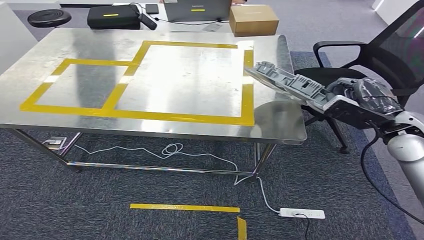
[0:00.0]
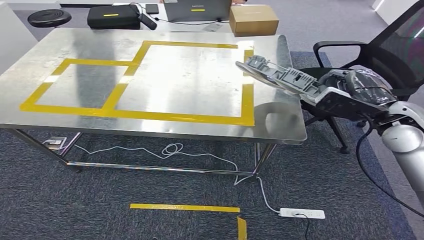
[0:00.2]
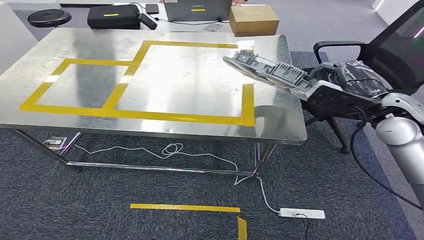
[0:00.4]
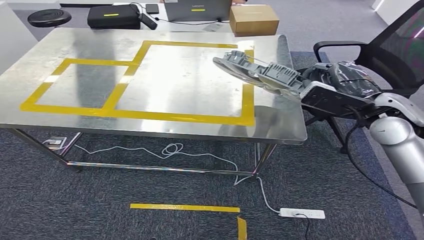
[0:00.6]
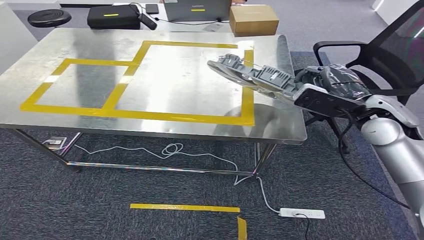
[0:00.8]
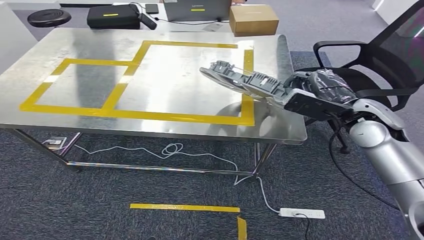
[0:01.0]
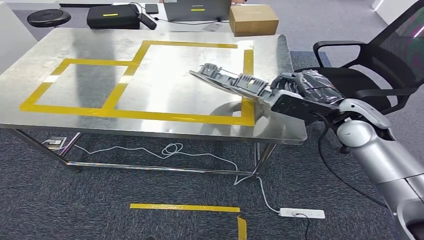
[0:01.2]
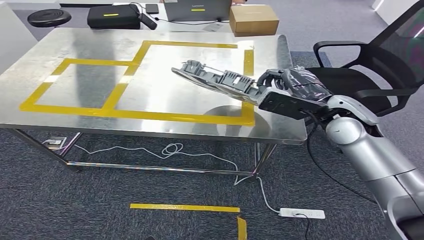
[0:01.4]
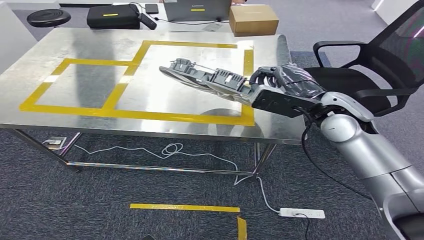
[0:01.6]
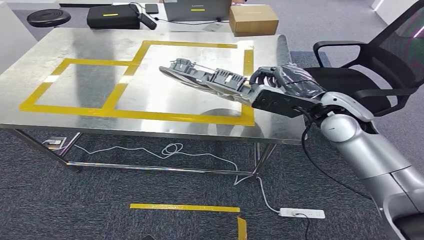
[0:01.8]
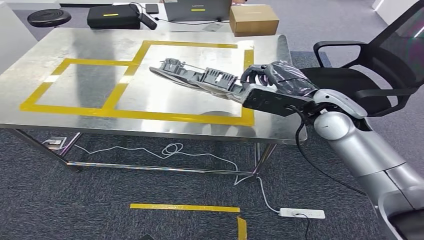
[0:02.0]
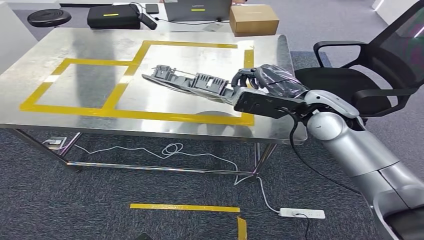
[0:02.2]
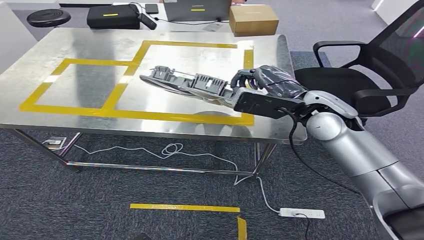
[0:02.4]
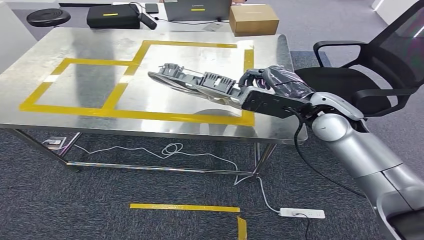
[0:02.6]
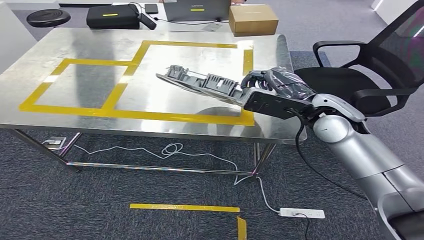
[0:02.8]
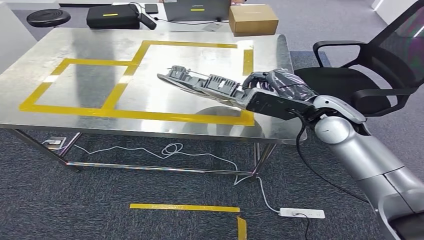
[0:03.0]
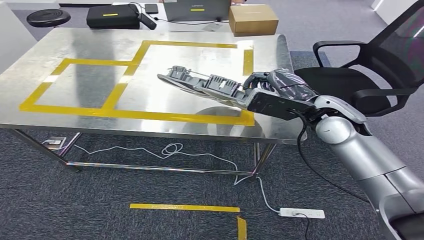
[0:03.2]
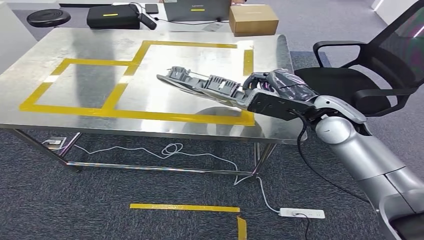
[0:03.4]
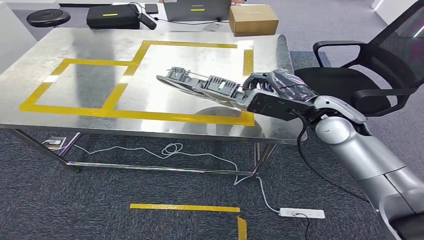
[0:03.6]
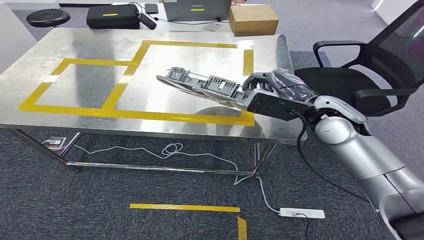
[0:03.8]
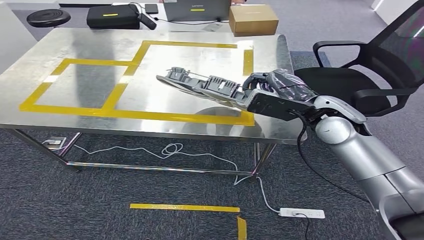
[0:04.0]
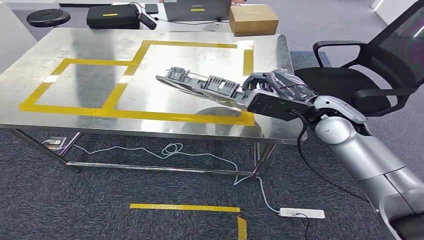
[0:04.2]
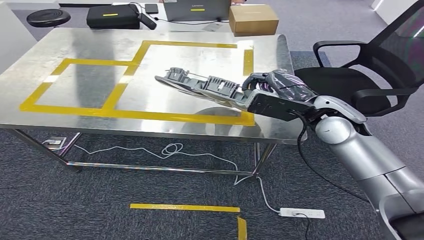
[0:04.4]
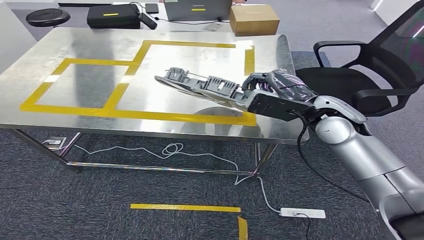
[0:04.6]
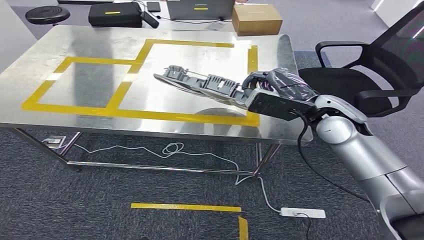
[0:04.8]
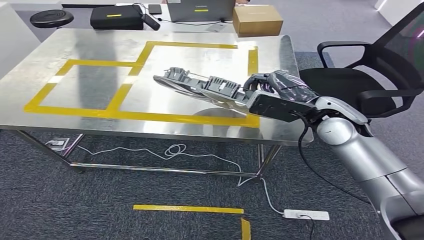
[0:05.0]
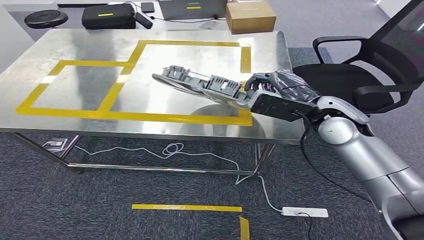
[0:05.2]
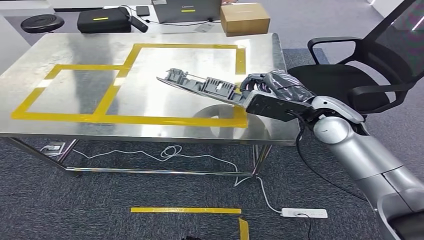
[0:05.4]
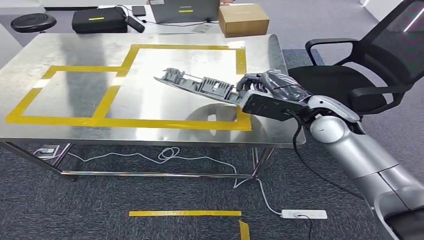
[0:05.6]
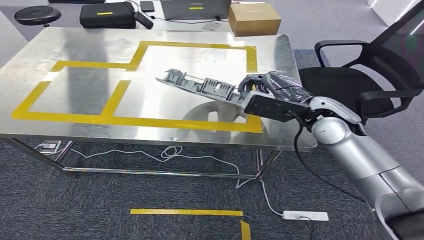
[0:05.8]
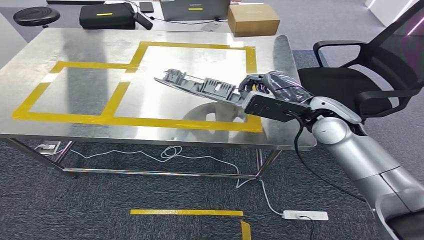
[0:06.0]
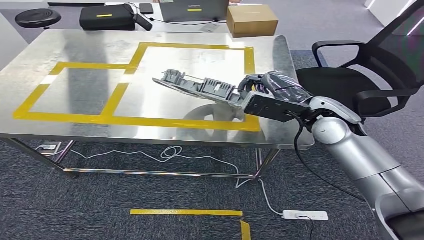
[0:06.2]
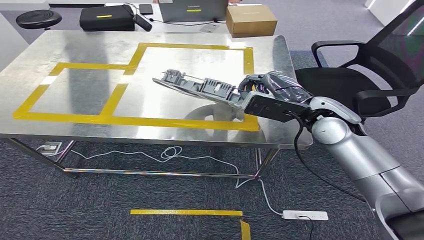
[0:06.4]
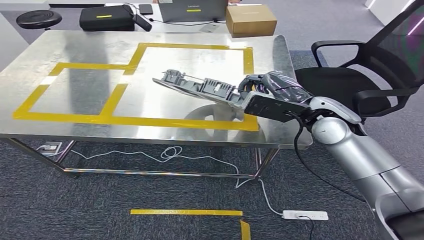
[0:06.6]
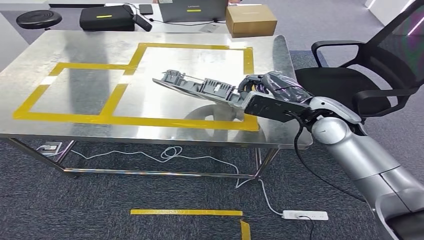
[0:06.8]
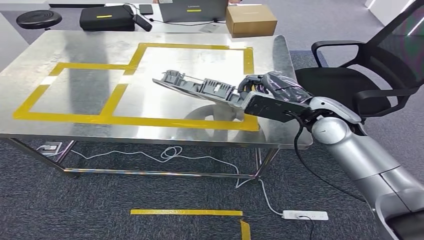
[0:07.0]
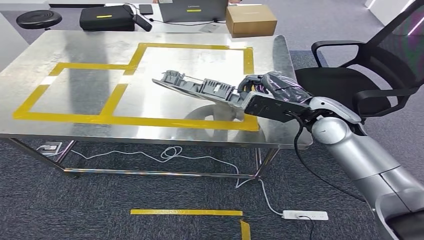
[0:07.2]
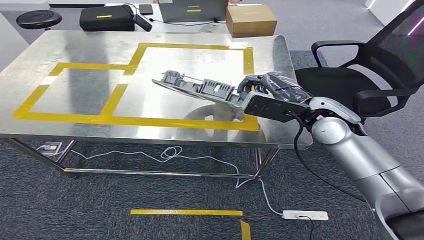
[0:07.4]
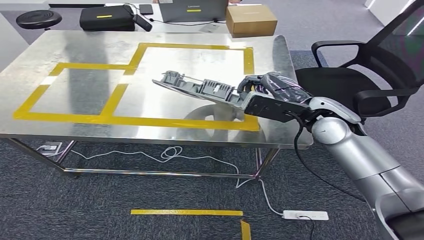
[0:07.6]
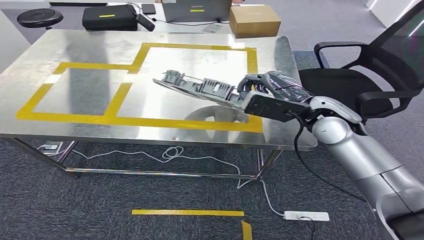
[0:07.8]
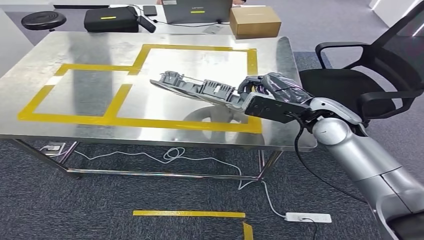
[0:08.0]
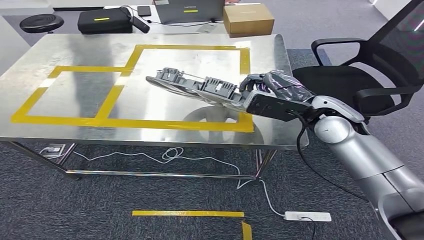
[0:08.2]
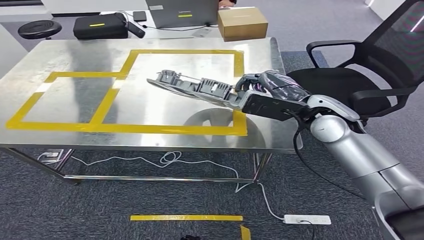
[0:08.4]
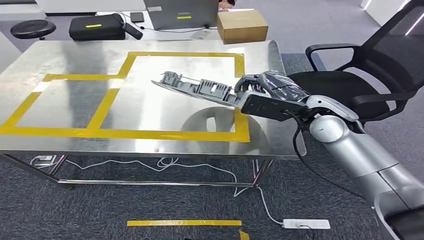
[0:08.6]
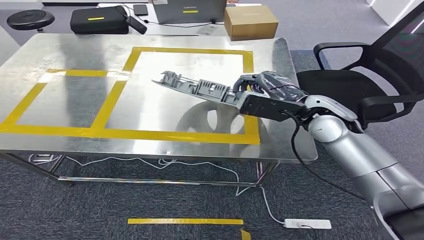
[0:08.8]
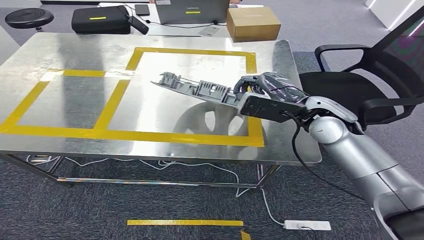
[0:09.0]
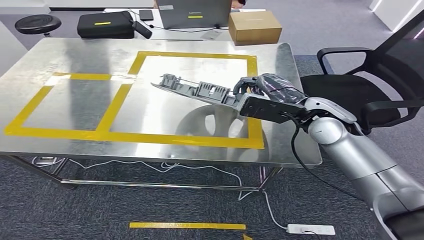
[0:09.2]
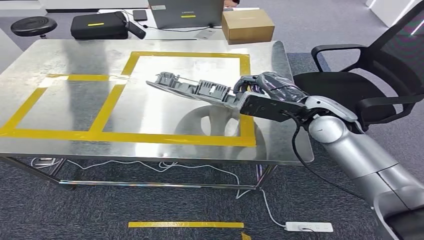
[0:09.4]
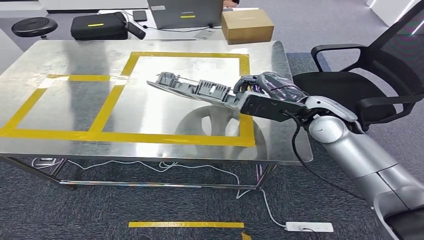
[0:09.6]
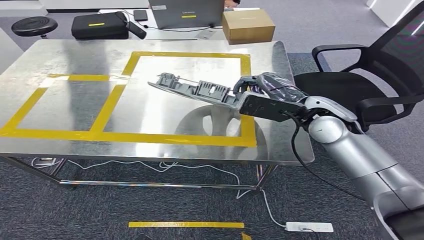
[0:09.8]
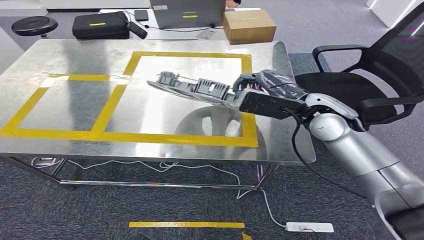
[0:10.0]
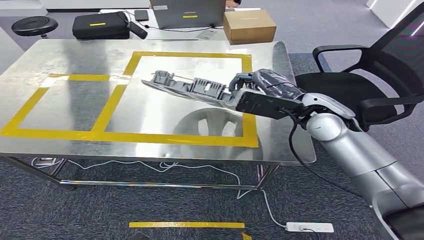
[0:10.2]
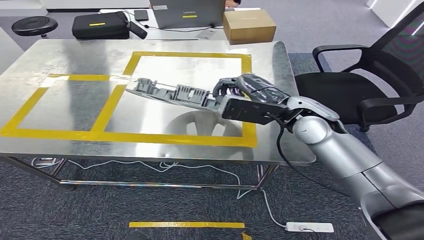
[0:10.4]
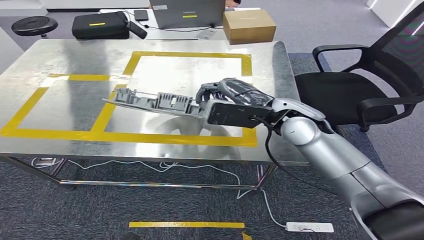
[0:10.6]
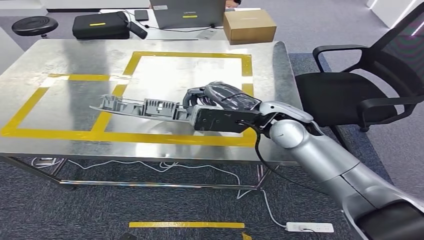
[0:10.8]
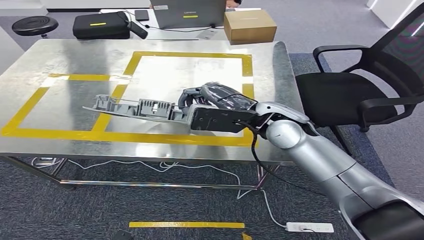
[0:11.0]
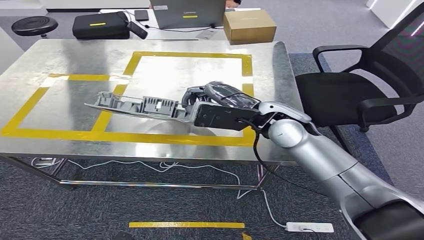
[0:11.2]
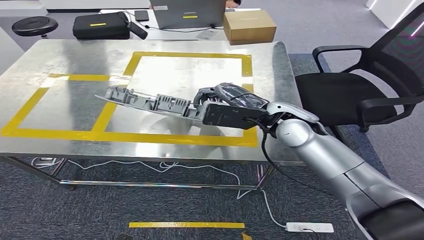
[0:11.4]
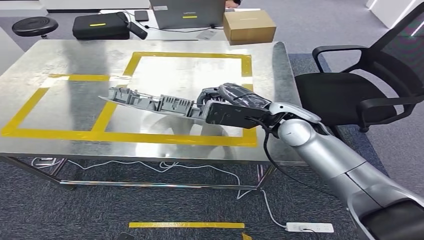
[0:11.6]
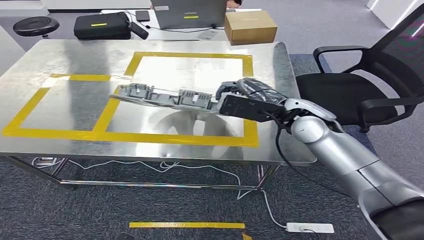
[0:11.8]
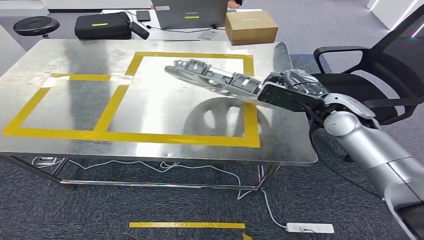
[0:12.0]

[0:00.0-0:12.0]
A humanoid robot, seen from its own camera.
0:00.0 to 0:01.6: The right hand heads to the left, covering approximately 15 cm.
0:01.6 to 0:04.4: The hands make only small movements.
0:06.0 to 0:07.6: Both hands stay about where they are.

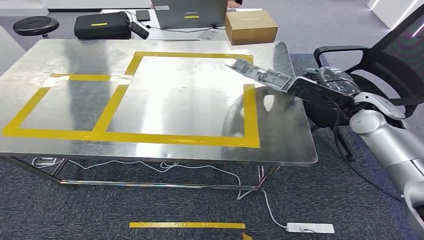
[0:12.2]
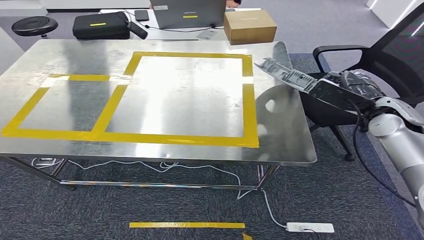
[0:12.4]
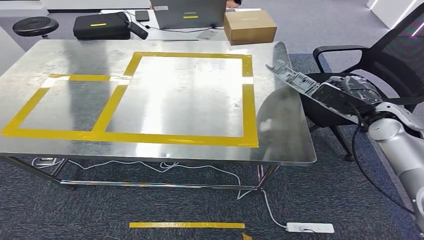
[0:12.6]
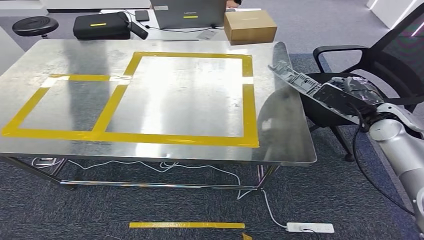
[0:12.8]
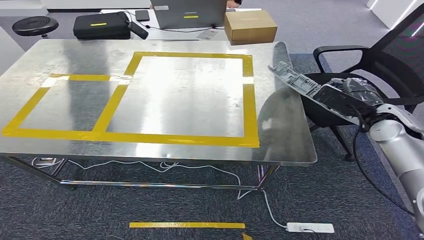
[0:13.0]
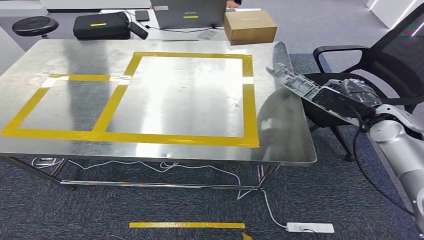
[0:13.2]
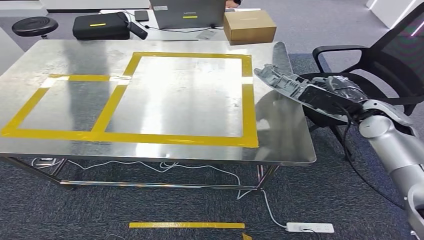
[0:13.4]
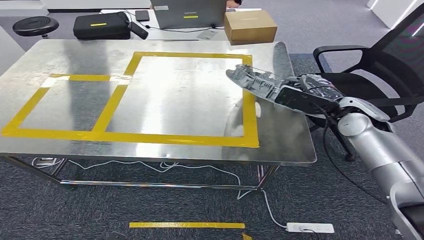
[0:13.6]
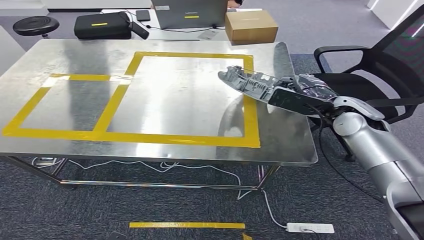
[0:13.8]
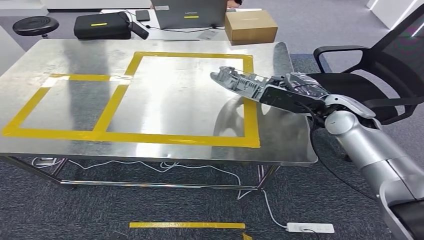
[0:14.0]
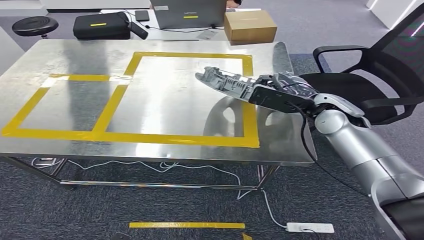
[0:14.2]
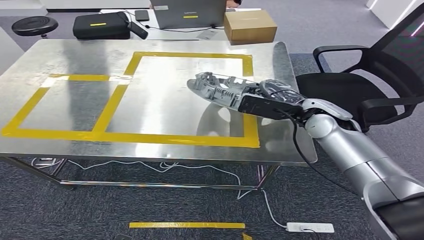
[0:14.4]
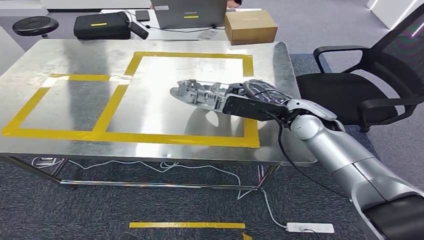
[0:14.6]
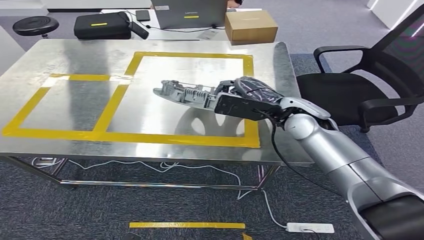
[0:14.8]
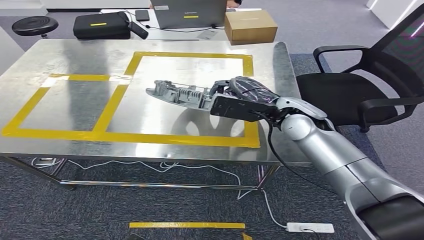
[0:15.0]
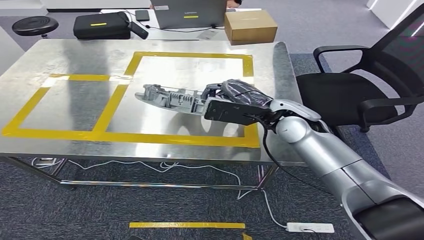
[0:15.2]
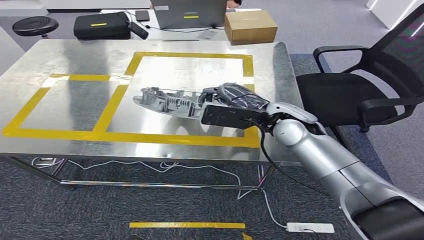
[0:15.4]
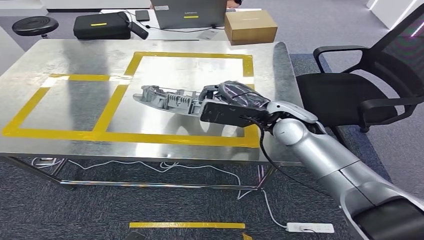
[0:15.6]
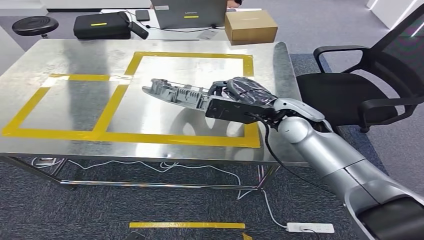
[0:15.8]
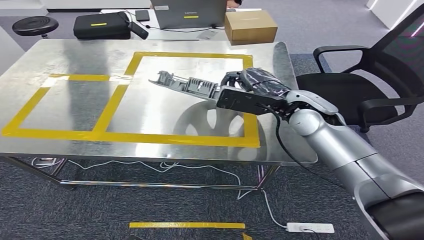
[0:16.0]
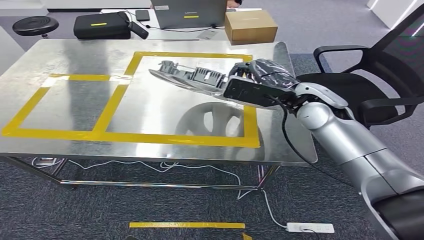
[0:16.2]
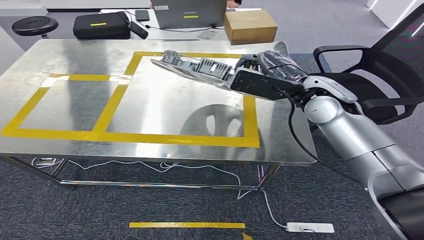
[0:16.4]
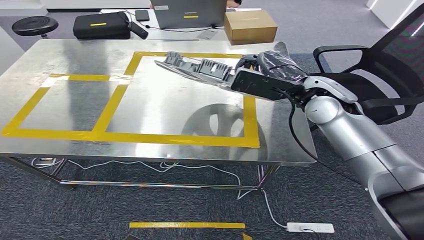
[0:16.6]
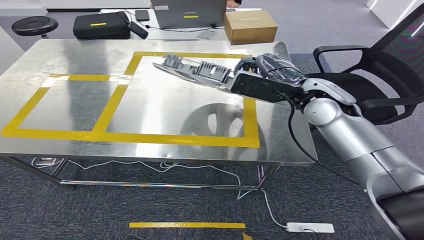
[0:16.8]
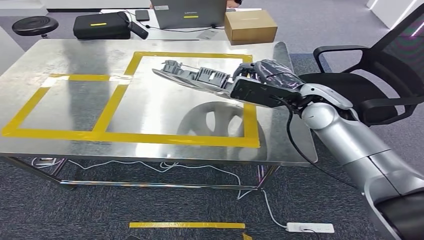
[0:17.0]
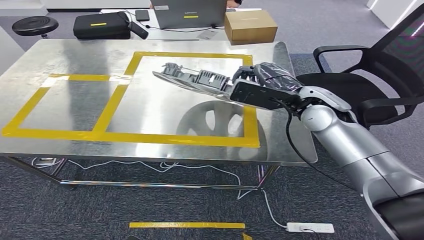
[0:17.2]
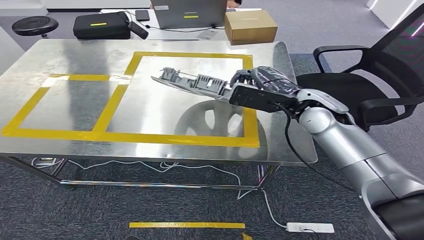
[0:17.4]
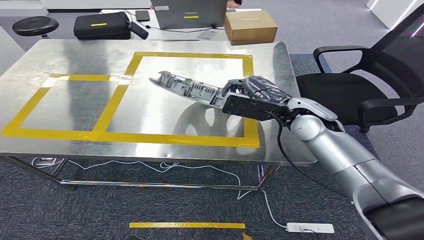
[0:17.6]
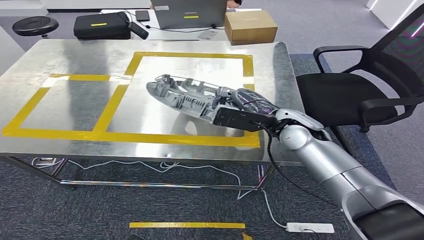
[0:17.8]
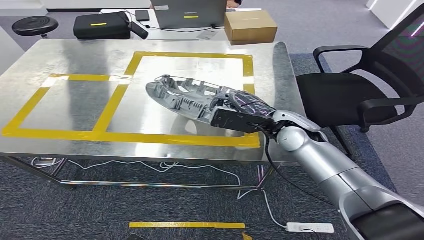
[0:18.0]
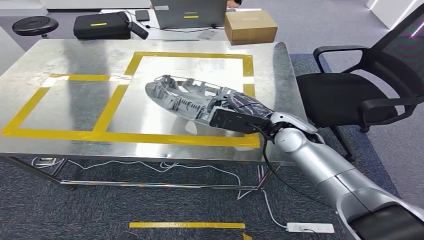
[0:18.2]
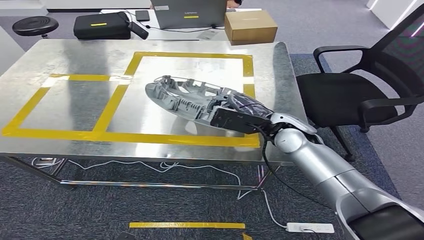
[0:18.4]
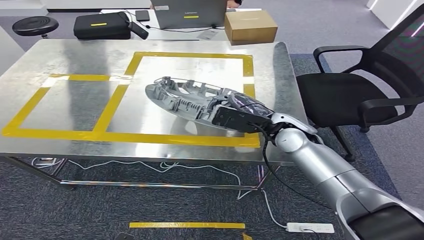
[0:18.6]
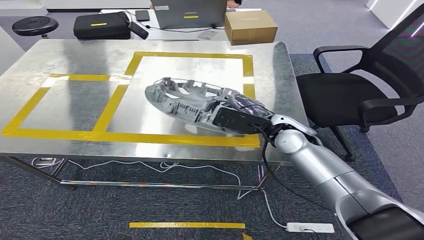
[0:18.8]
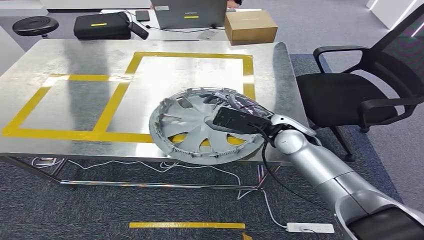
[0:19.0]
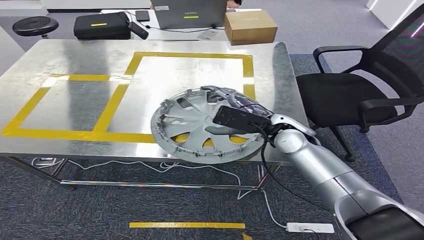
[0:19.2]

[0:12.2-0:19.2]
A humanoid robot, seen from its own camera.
0:13.6 to 0:15.0: The right hand heads to the left, covering roughly 15 cm.
0:15.0 to 0:16.4: The right hand shifts by about 5 cm.
0:17.8 to 0:19.2: The hands stay close to where they were, moving slightly.
